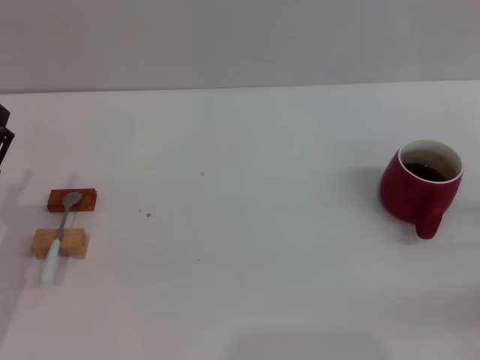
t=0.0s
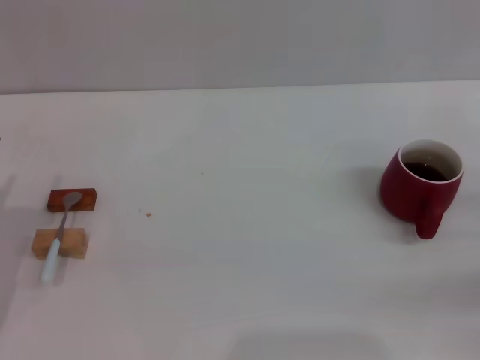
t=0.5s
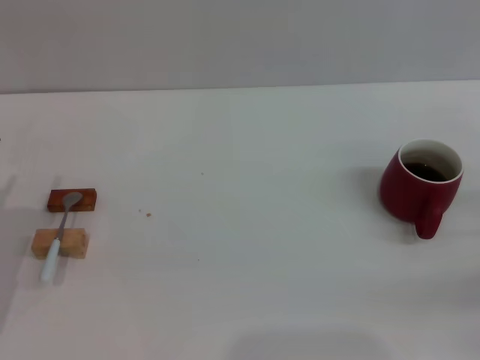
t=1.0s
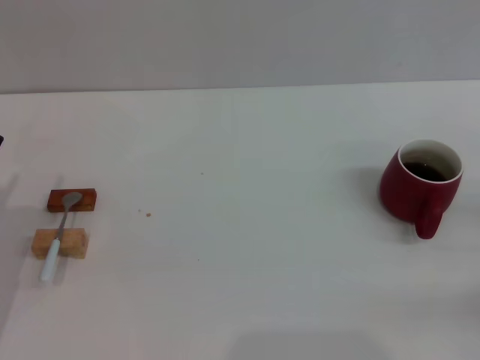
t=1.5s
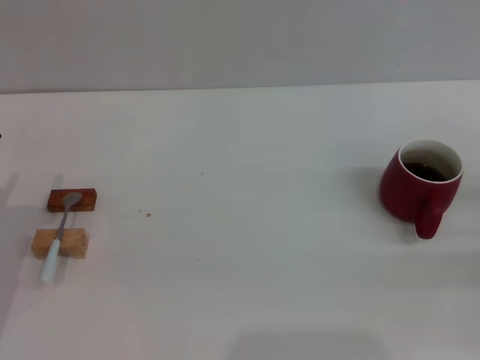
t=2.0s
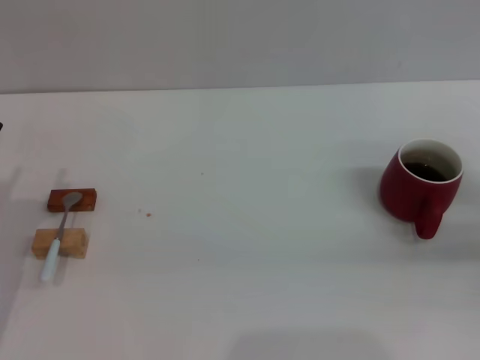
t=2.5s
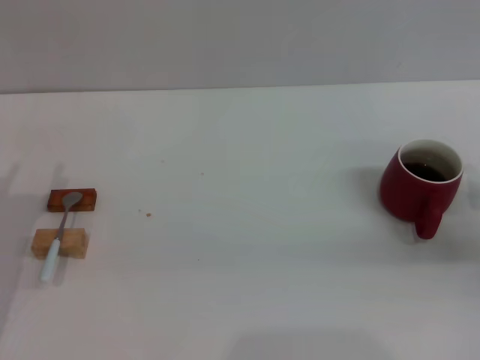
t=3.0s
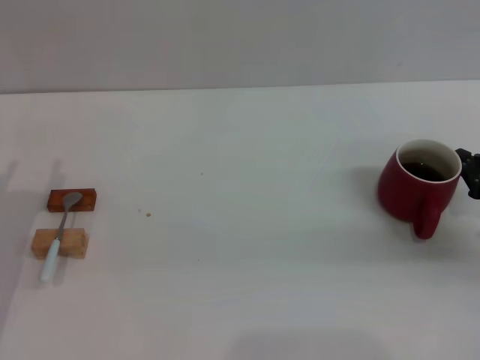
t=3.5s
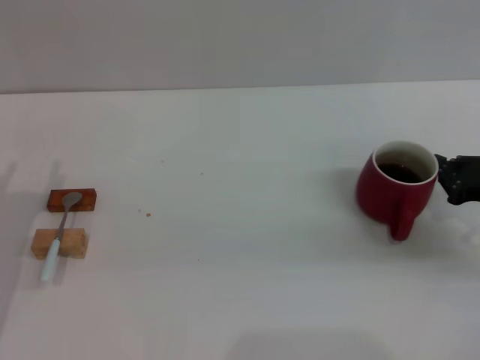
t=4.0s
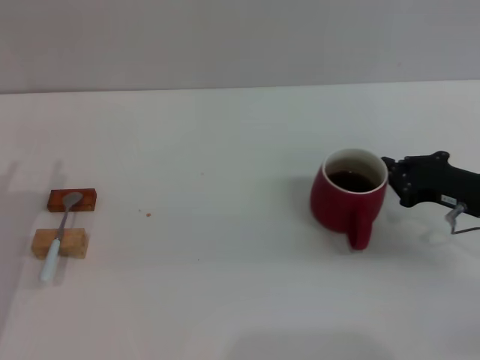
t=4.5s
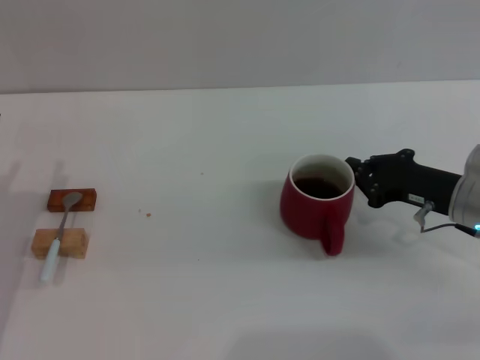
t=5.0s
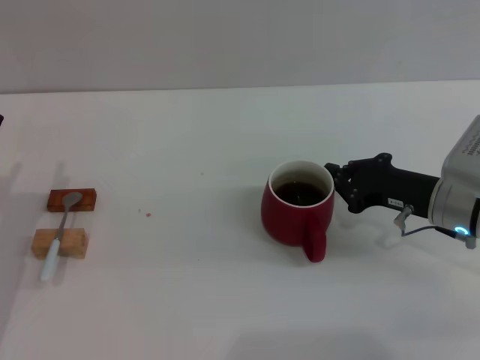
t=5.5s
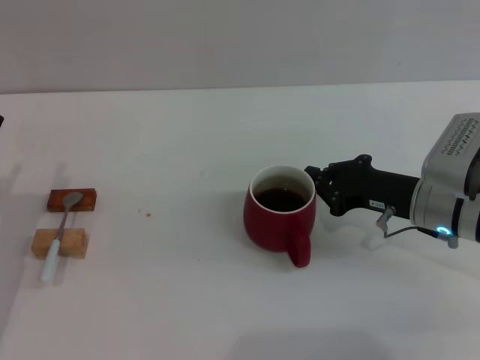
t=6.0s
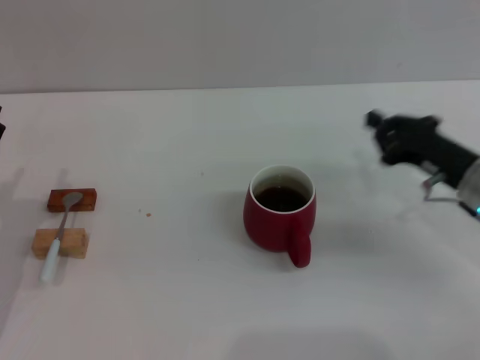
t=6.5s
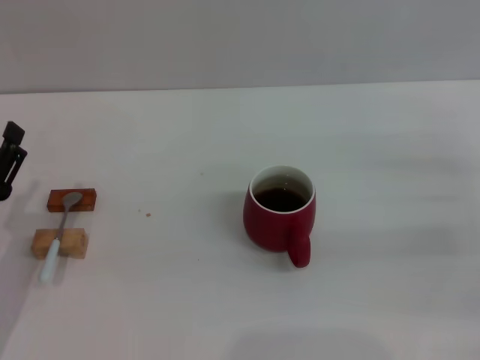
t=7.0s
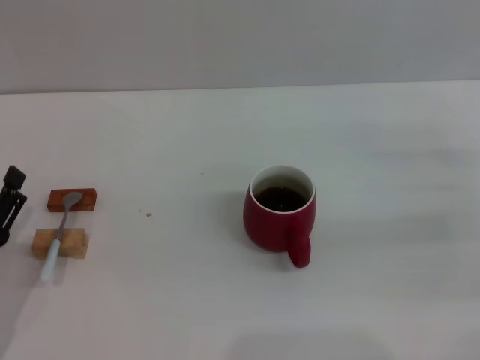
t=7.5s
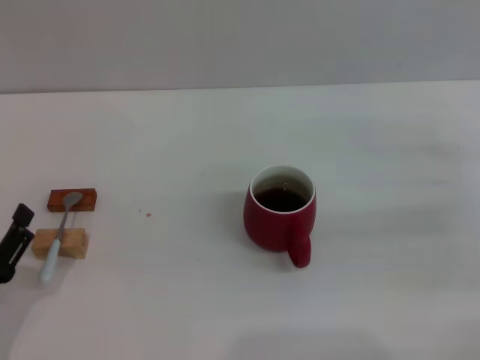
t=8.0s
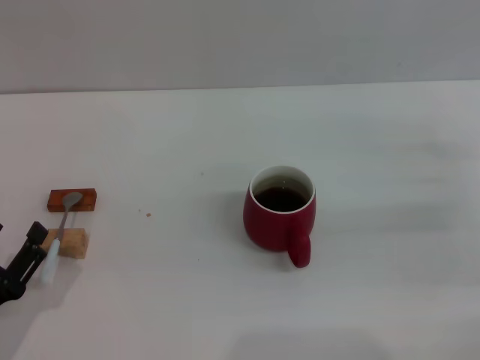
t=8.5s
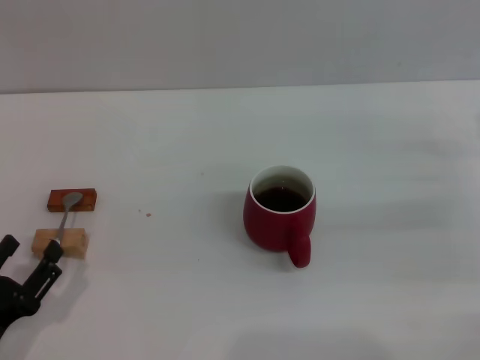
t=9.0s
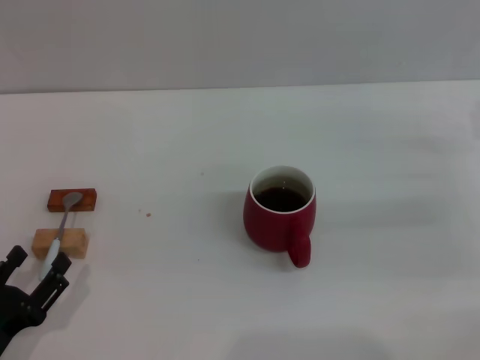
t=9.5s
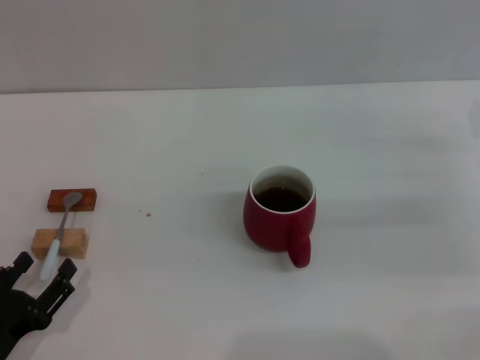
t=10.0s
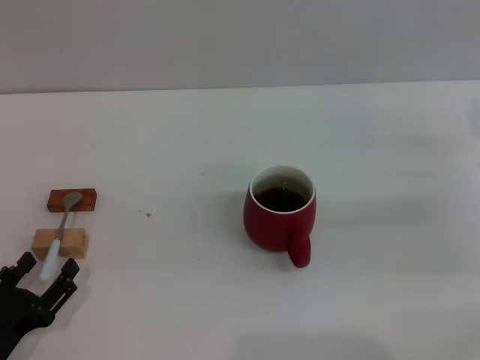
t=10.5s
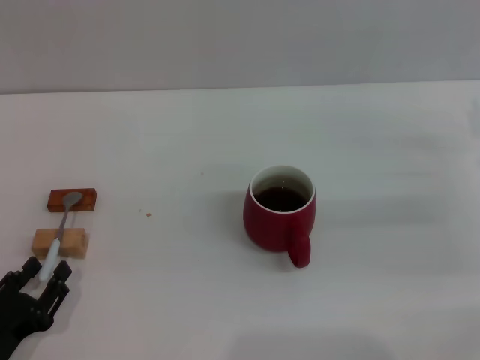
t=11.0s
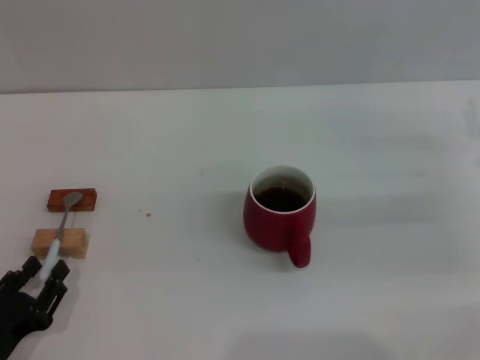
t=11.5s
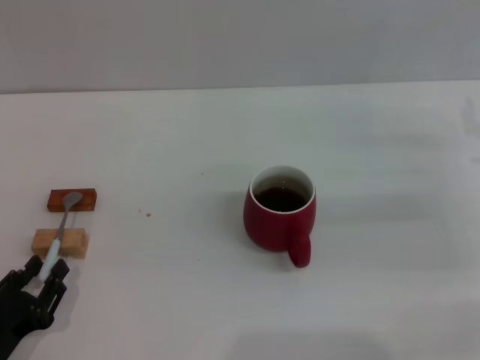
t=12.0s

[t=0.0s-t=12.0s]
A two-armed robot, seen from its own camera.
Task of the whole recording: Move the red cup to the center, lift the blue spoon, stir it three times in the cup, and put the spoon into the cup.
Step, t=0.0s to t=6.0s: Move the cup with coffee to the center of view with the right gripper.
t=2.0s to t=4.0s: The right gripper travels to the left by roughly 5 cm.
t=4.0s to t=6.0s: The right gripper moves to the left, approximately 10 cm.
t=6.0s to t=8.0s: The right gripper shifts approximately 15 cm to the right, and opens. The left gripper heads backward, covering some 10 cm.
t=8.0s to t=10.0s: There are only small adjustments of the grippers.
t=10.0s to t=12.0s: The left gripper closes up.

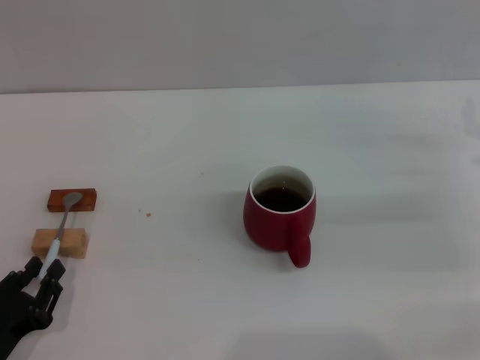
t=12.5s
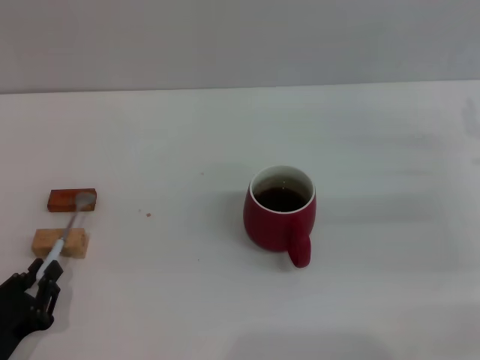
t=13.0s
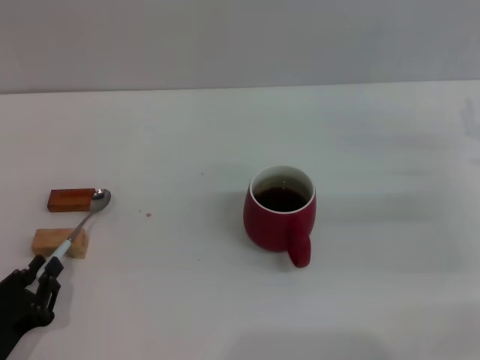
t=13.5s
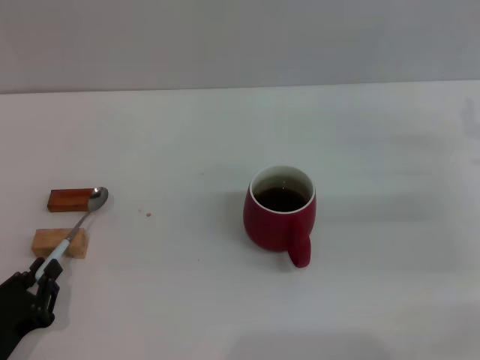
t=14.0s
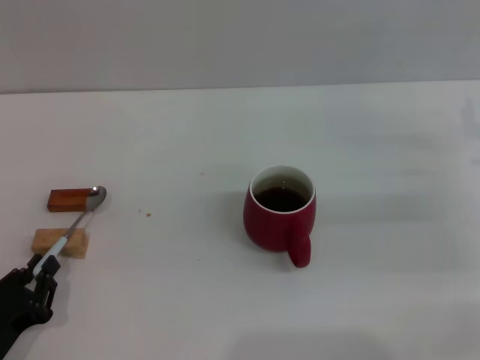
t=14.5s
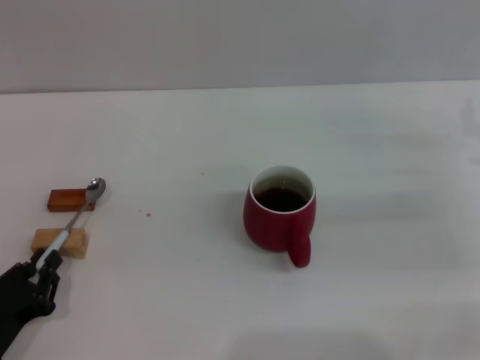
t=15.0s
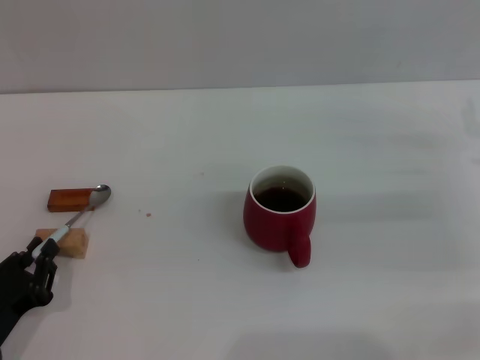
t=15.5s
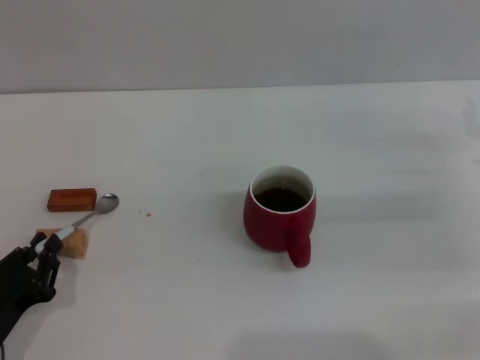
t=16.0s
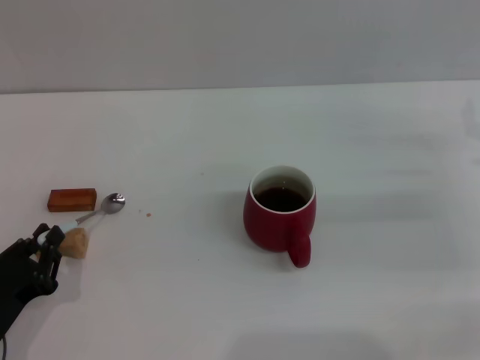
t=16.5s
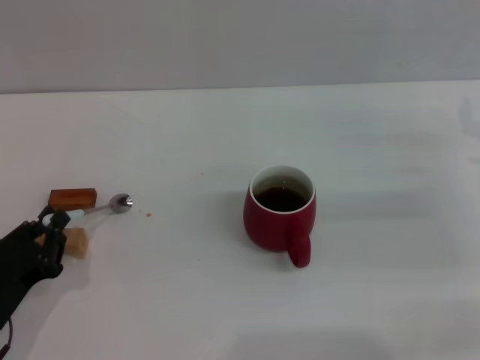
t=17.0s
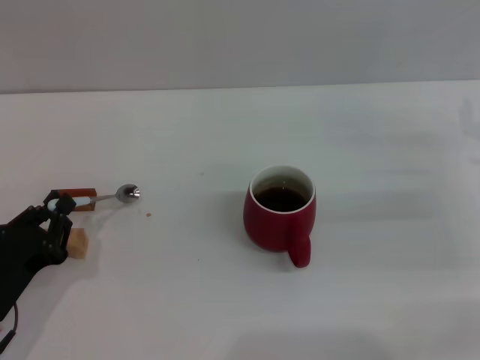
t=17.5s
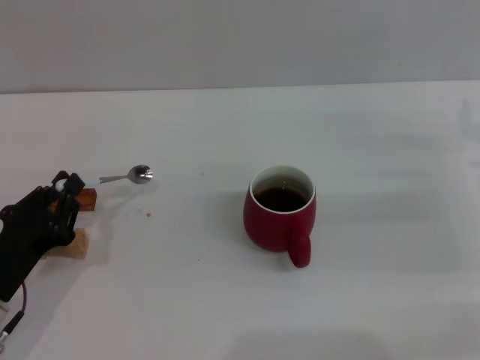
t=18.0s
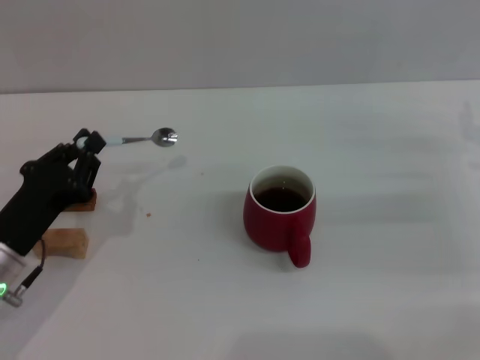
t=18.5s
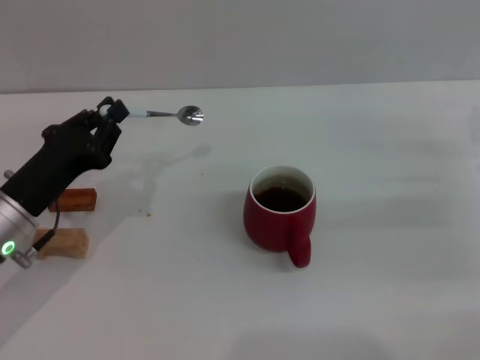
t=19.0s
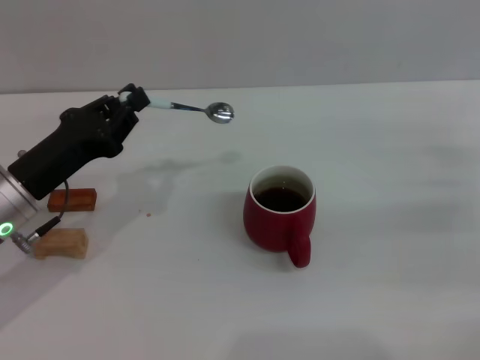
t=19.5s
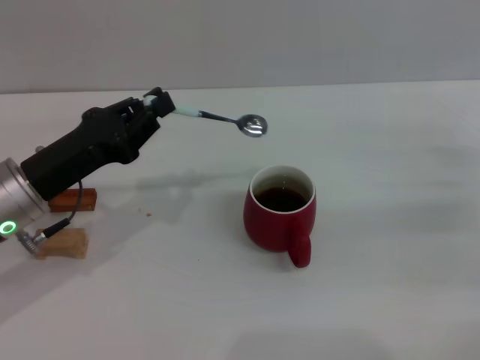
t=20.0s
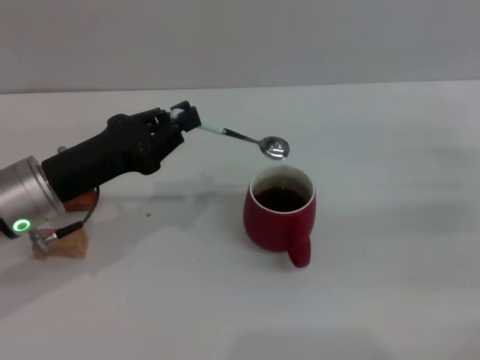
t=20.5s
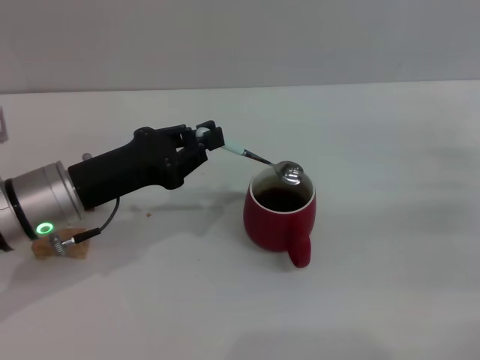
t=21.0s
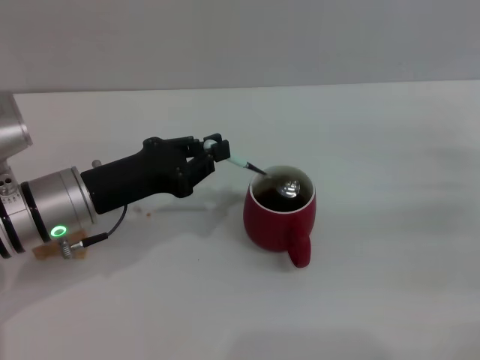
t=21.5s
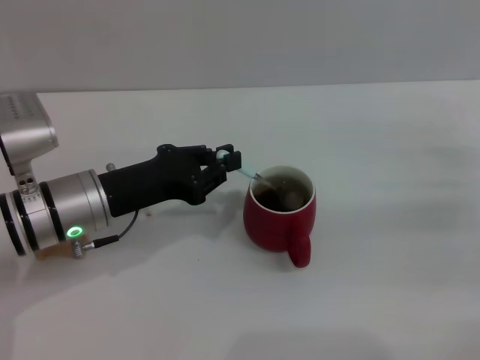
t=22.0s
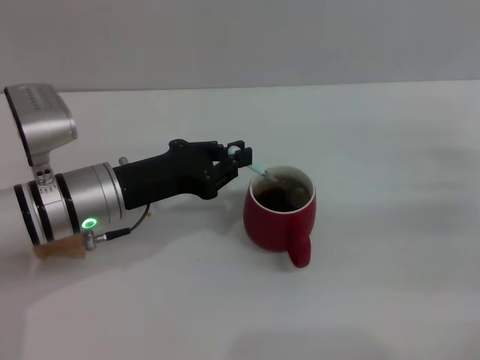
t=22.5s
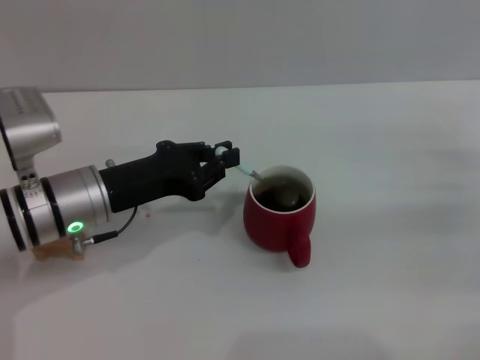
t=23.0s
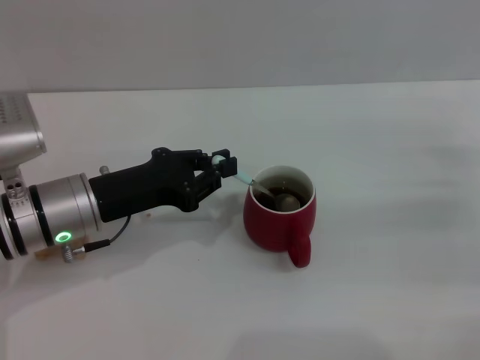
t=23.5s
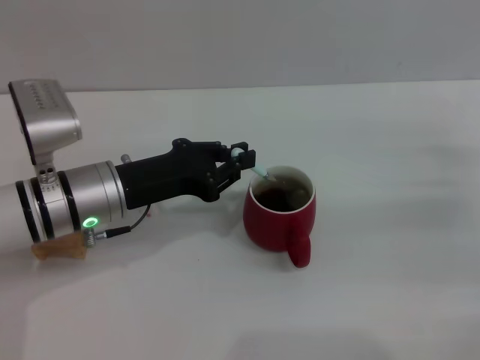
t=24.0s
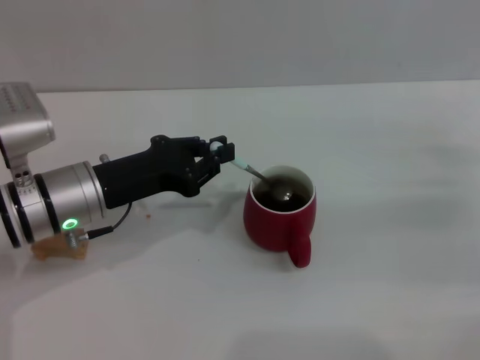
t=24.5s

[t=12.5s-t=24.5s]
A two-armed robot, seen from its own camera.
Task of the whole recording: Move the red cup to the center, lift the blue spoon, stir it three times in the cup, and put the spoon into the cup.
Step, t=12.5s to t=18.0s: Pick up the spoon with the left gripper.
t=12.5s to t=14.5s: Both grippers stay about where they are.
t=14.5s to t=16.5s: The grippers stay close to where they were, moving slightly.
t=16.5s to t=18.5s: The left gripper travels forward by approximately 10 cm.
t=18.5s to t=20.5s: The left gripper goes about 10 cm upward and forward.
t=20.5s to t=22.5s: The left gripper shifts by roughly 5 cm.
t=22.5s to t=24.5s: The grippers move only a little.

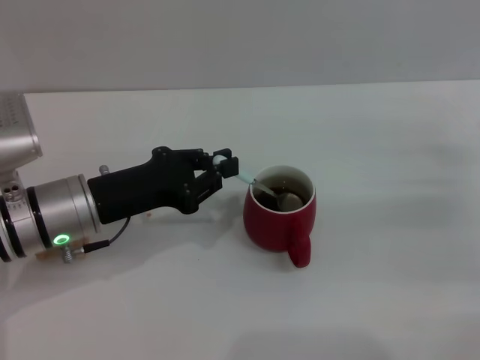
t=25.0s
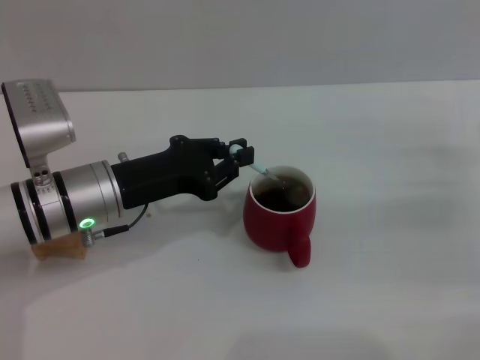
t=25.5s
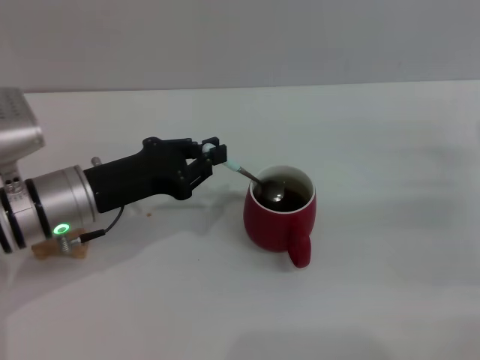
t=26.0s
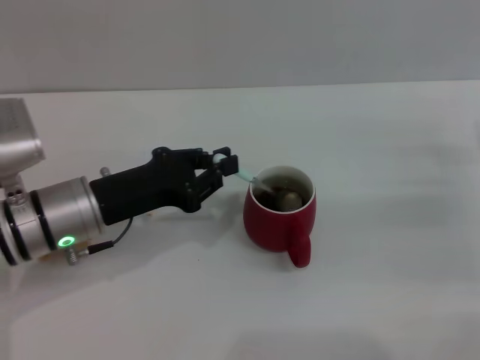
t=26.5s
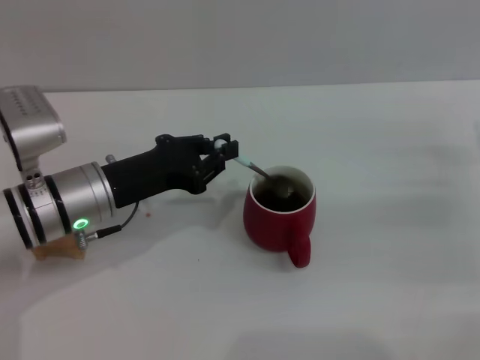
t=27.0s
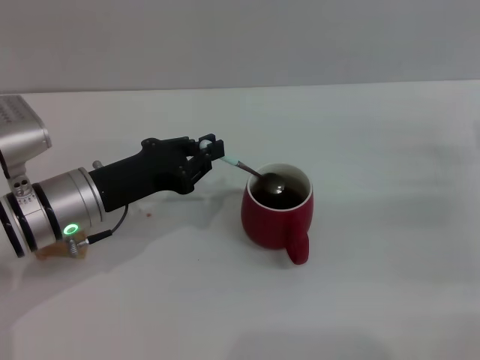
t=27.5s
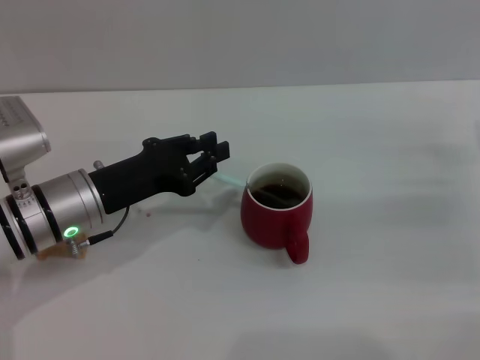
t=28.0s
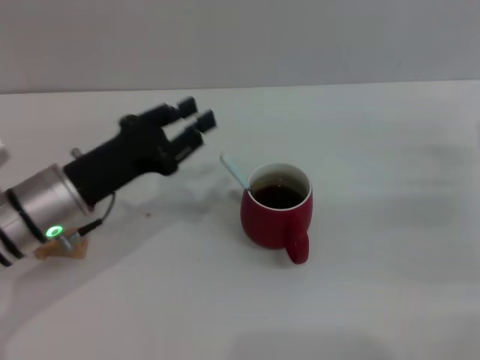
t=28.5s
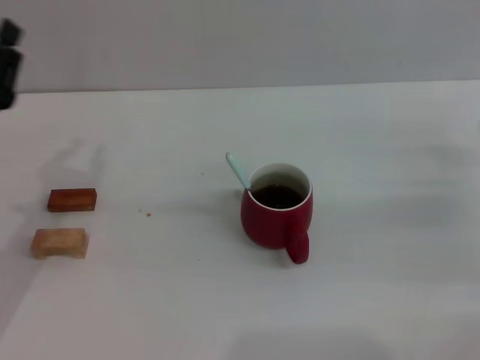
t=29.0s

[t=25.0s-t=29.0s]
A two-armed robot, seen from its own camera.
Task of the whole recording: Move the red cup to the center, lift the blue spoon, stir it three times in the cup, and put the spoon into the cup.
Step, t=25.0s to t=28.0s: Stir the coffee in the cup with the left gripper.
t=25.0s to t=27.0s: The grippers stay close to where they were, moving slightly.
t=27.0s to t=29.0s: The left gripper is displaced to the left by about 10 cm, and opens.
